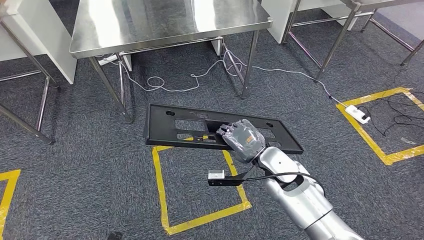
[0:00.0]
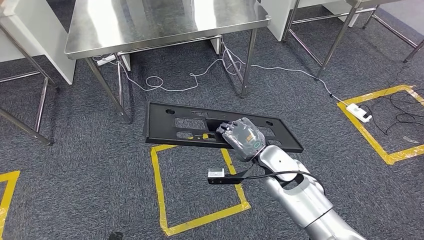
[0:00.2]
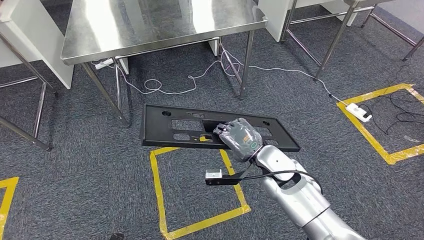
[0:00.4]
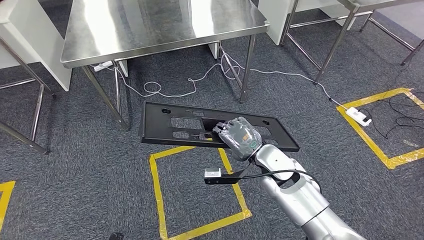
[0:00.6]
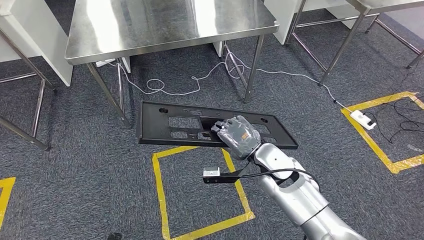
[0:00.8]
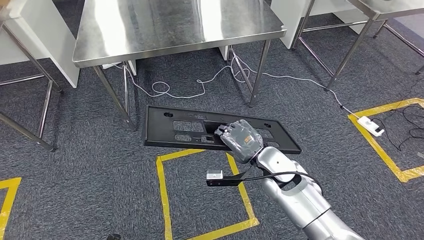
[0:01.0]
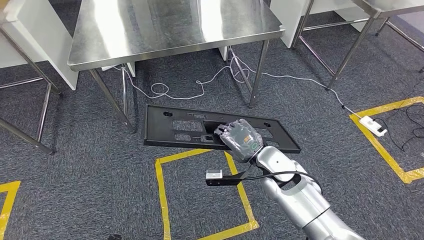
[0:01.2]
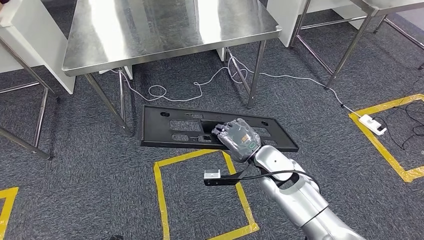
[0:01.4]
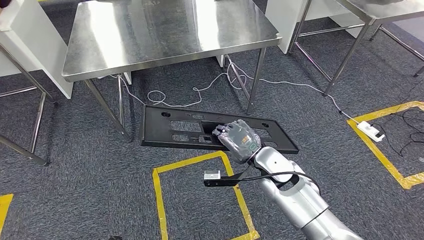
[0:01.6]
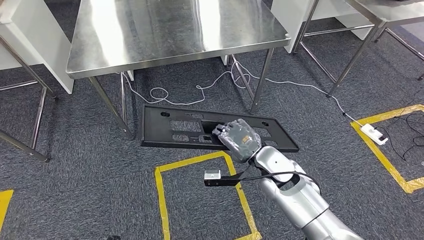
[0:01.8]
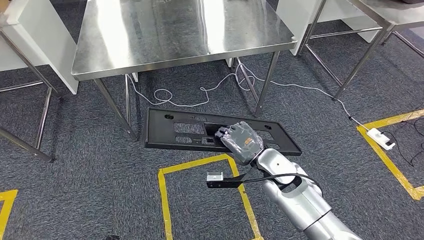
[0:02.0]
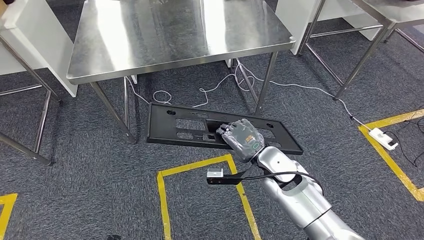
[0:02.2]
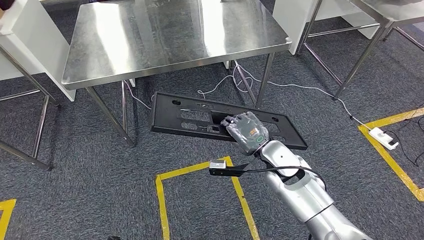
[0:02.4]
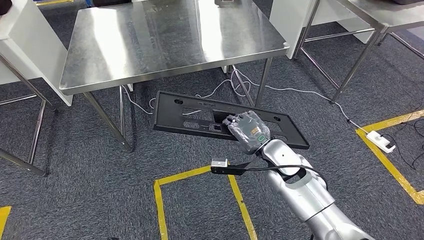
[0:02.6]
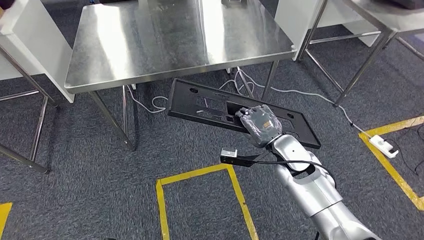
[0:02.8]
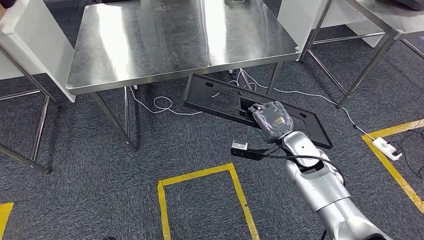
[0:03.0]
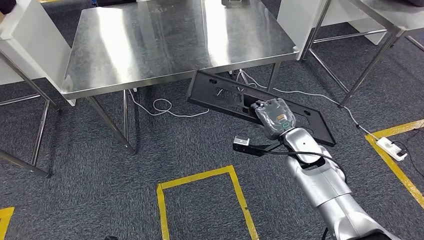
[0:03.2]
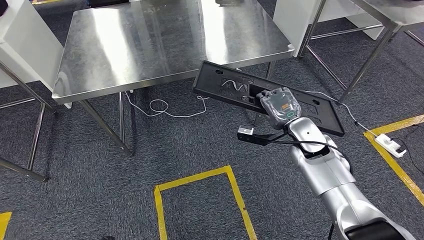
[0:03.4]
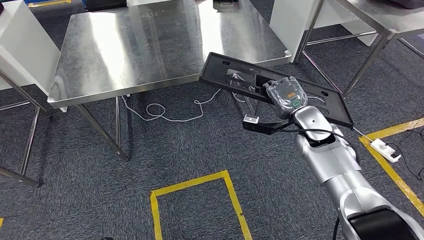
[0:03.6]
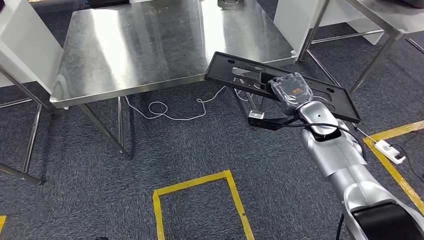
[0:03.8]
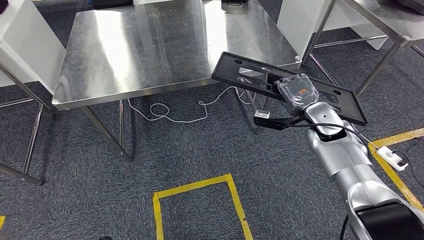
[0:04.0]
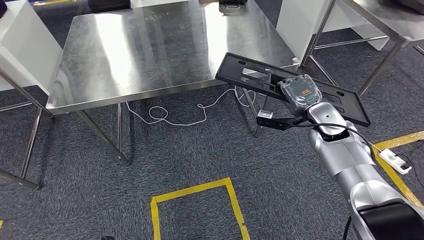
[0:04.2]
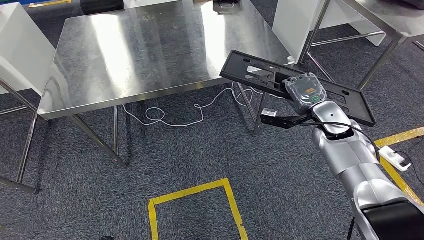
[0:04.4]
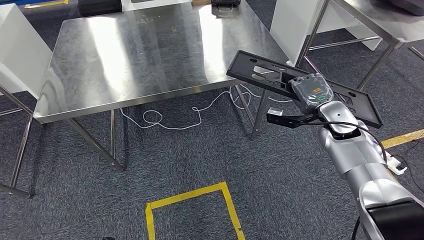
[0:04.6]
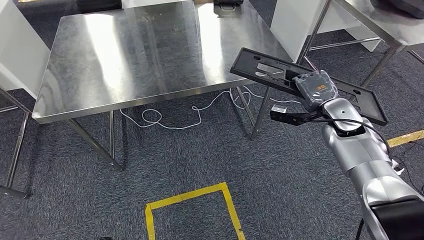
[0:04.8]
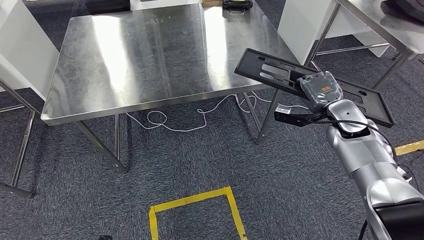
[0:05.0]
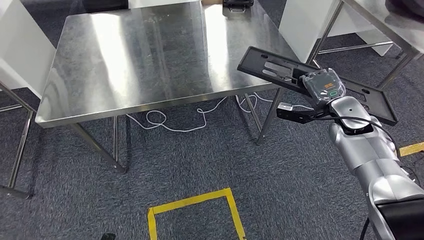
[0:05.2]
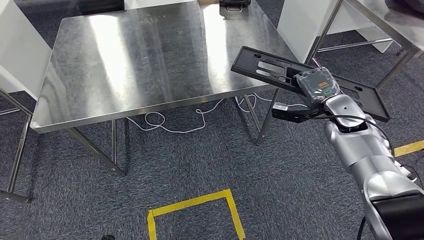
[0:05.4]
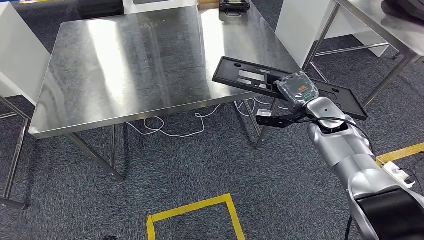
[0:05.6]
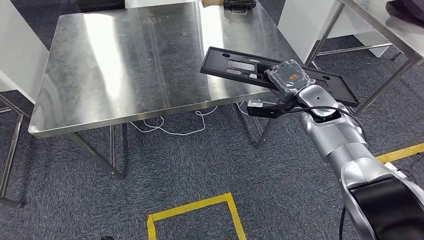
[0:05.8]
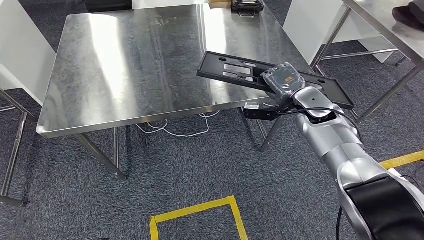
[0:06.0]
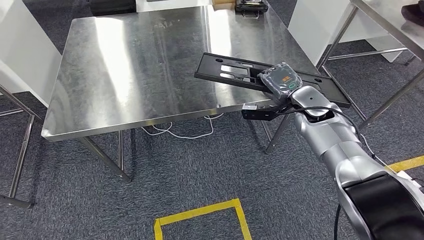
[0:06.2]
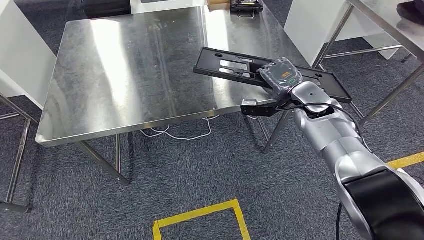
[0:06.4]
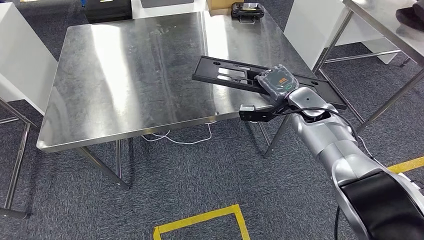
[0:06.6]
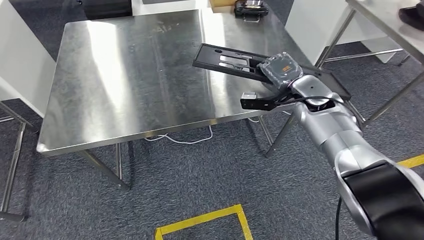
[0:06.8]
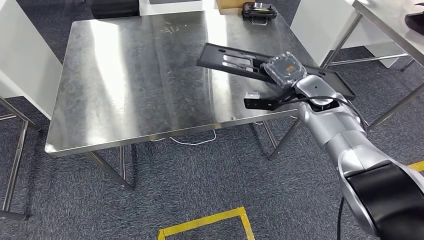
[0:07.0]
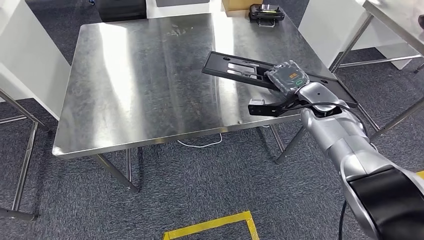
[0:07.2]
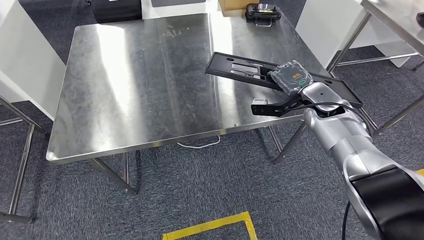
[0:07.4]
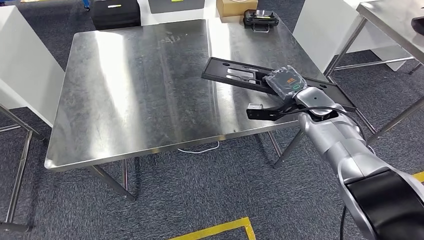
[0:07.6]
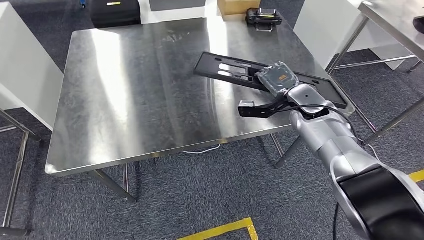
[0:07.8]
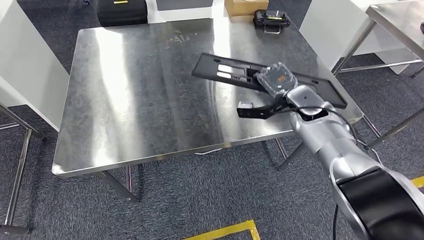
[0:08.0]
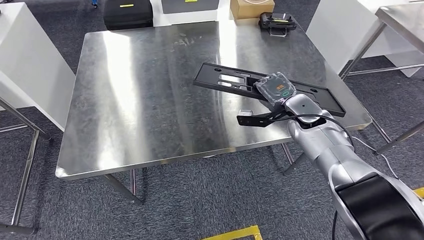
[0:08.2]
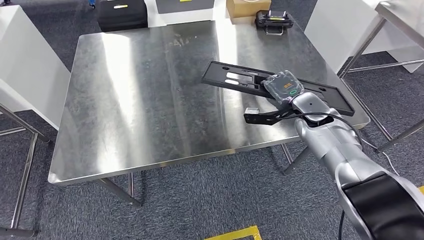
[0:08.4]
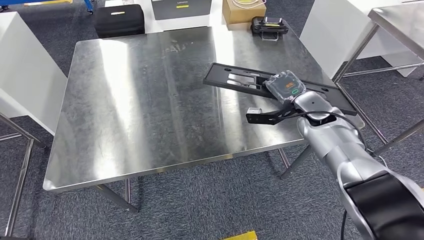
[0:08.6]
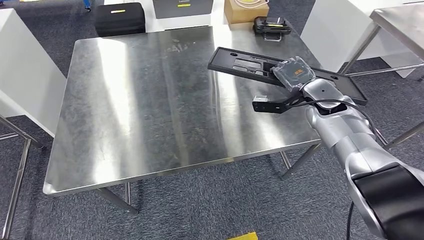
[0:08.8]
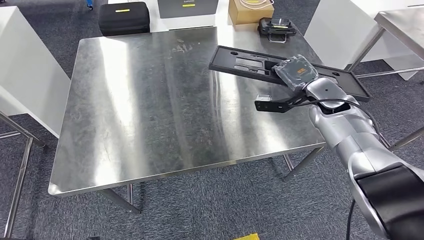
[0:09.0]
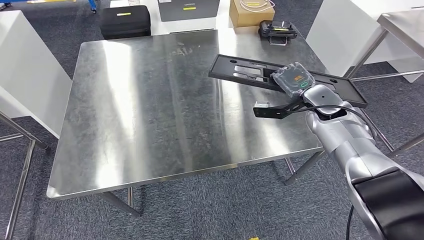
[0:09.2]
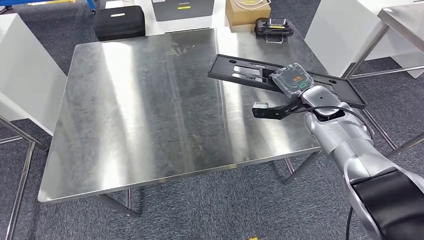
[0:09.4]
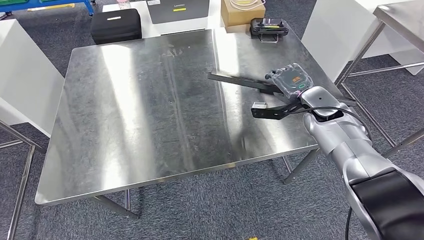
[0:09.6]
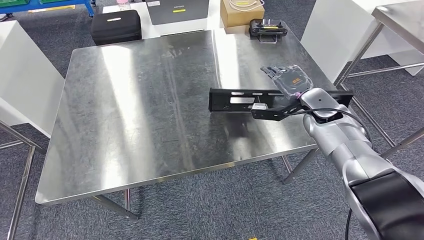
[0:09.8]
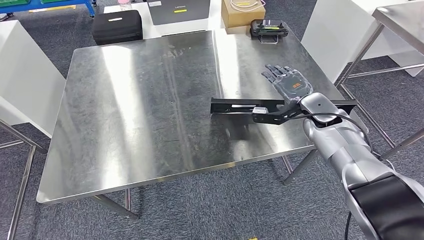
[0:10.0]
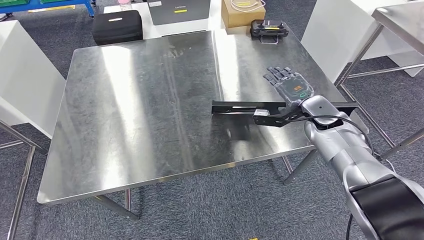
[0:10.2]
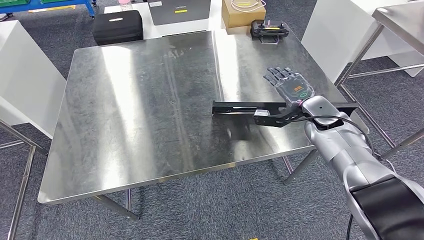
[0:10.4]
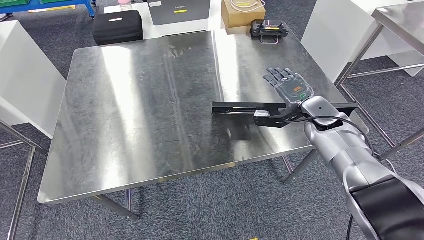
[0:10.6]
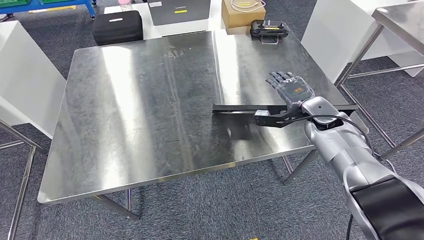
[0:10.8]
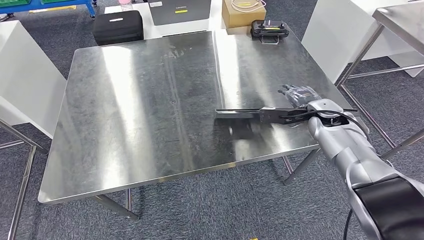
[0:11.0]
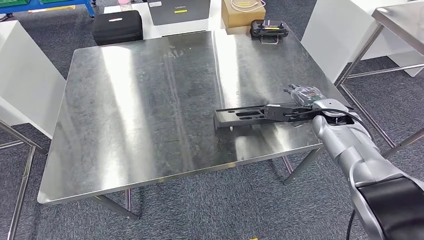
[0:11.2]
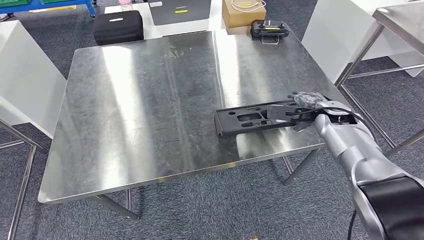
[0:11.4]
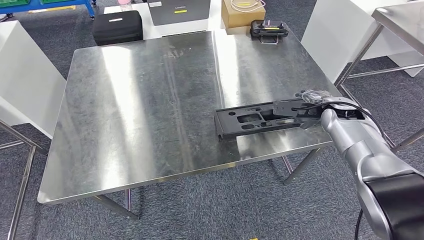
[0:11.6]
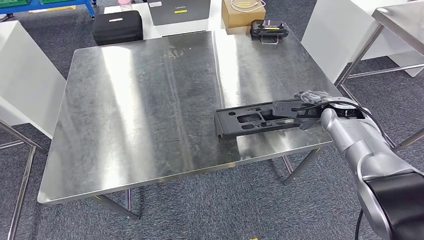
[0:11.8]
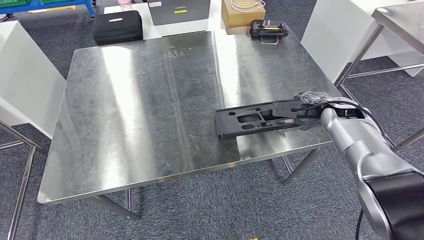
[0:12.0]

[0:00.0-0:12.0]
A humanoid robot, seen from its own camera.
Step, 0:00.0 to 0:02.4: Move the large material to the workbench.

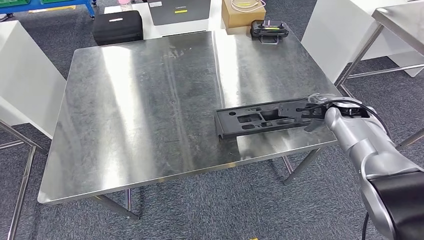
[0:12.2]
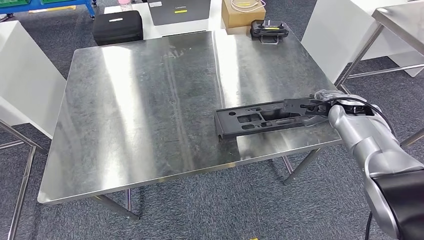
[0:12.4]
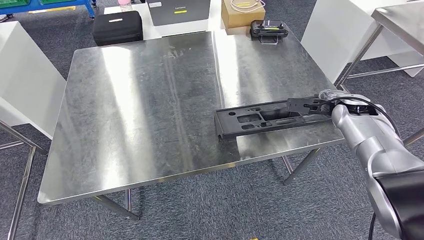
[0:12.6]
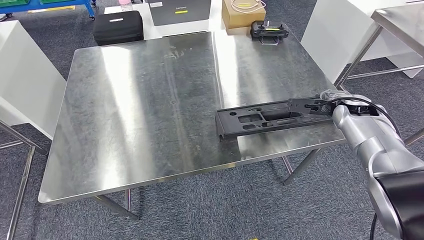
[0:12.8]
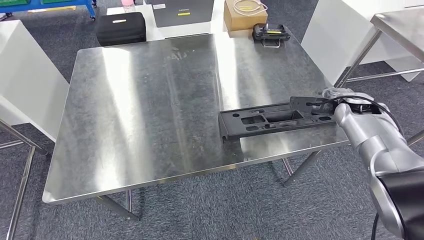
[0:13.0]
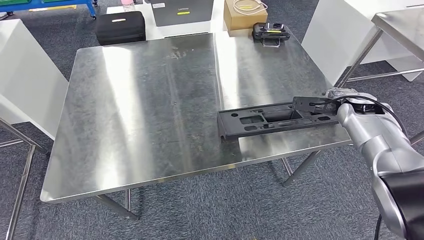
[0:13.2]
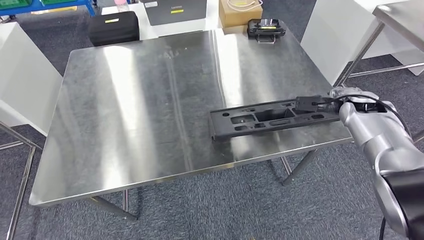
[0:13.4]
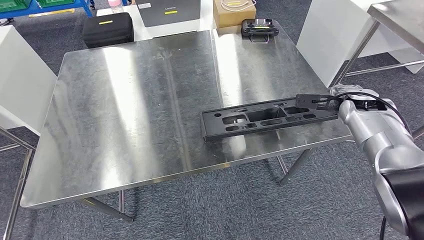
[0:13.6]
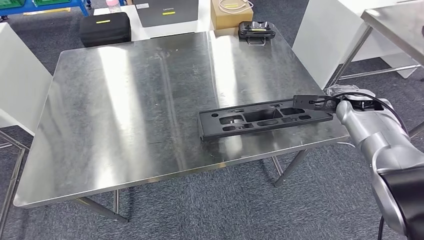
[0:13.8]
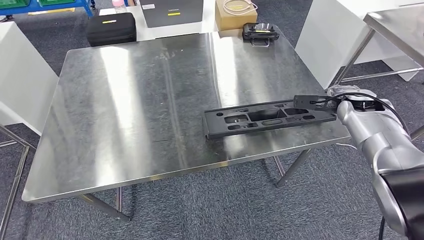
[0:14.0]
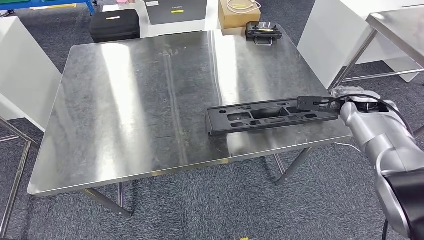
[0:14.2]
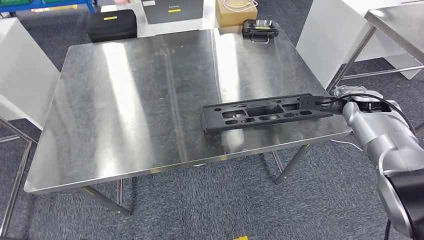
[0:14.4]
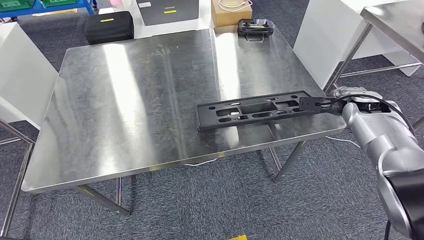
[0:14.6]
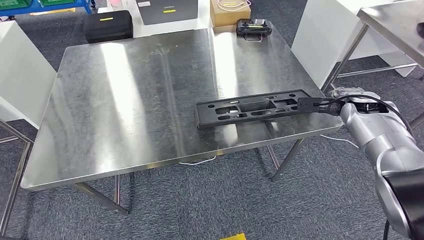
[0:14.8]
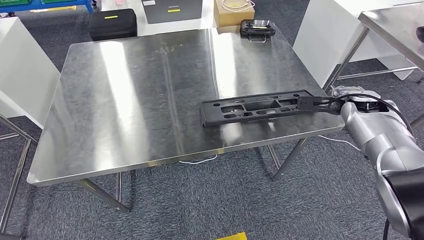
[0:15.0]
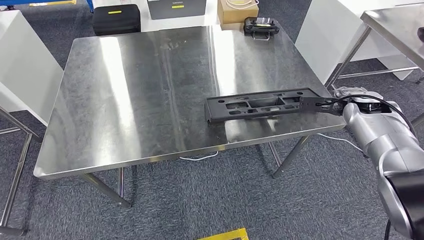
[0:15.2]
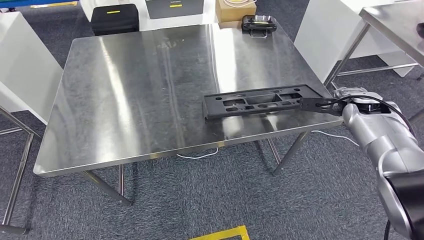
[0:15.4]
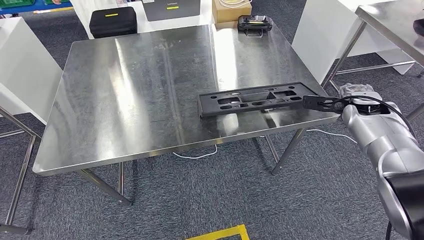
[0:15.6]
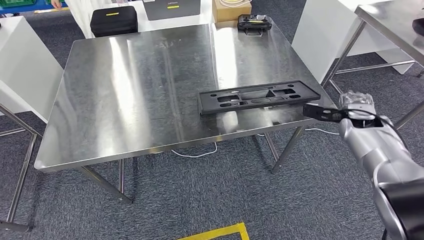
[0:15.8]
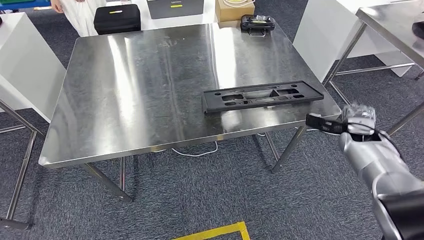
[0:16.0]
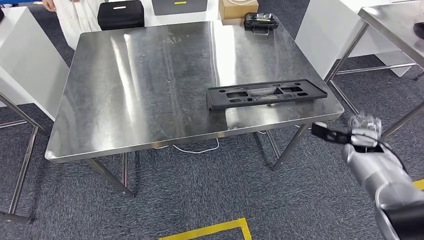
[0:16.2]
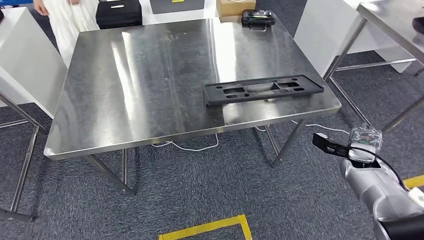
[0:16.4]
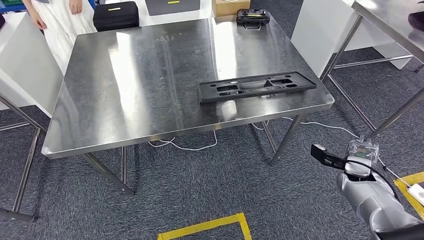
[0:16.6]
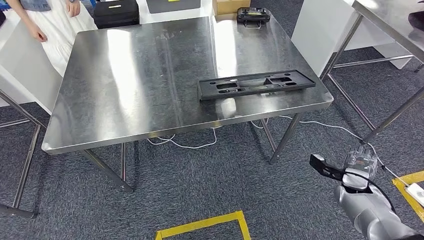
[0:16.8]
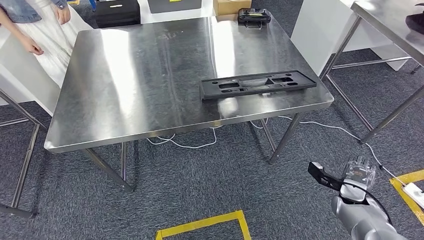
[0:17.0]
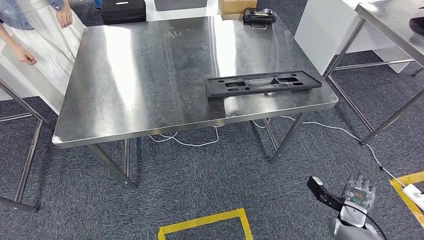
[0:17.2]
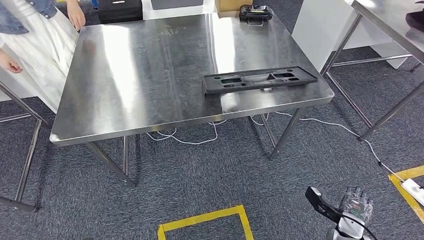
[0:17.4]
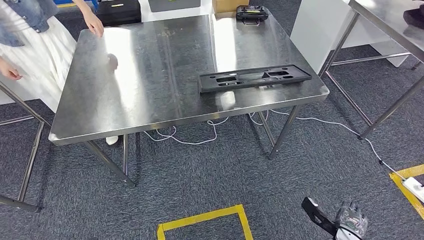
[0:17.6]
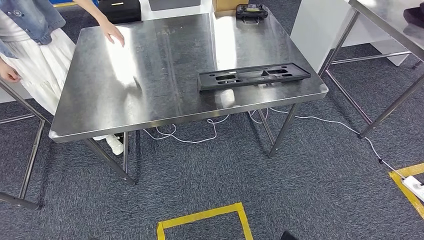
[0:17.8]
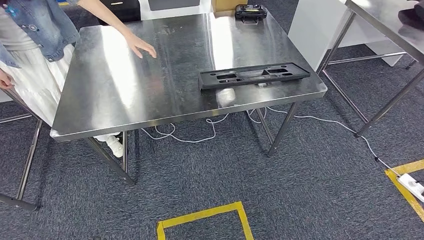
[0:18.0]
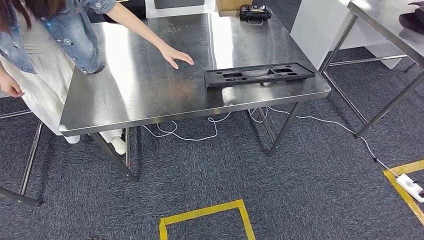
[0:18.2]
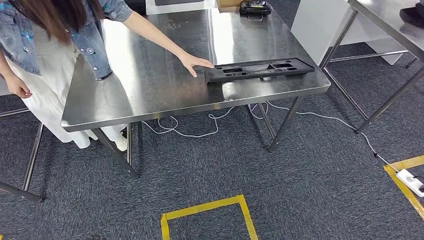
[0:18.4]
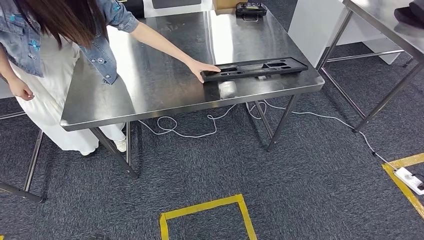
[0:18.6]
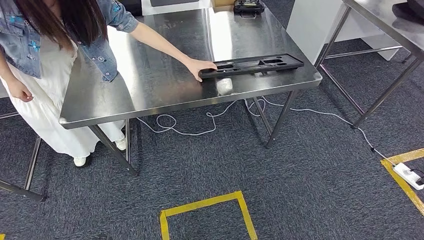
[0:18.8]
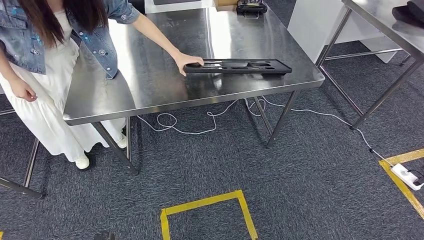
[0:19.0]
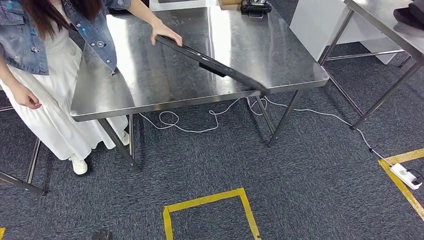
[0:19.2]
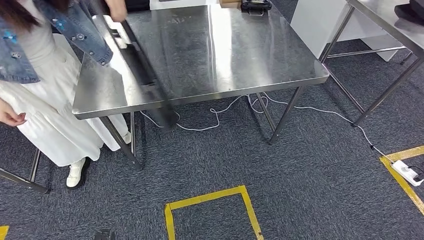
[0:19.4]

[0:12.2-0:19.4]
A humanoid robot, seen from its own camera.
Step, 0:12.2 to 0:16.0: Insert the large material into the corresponding slot on the workbench.
